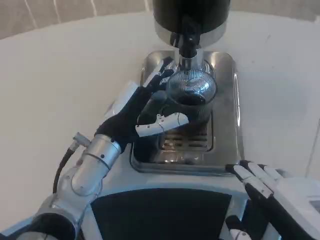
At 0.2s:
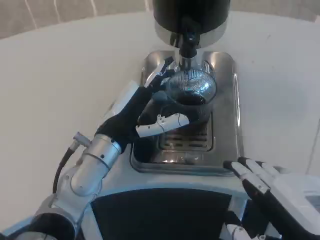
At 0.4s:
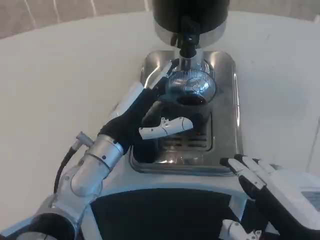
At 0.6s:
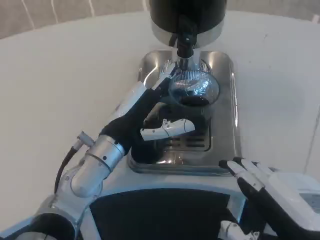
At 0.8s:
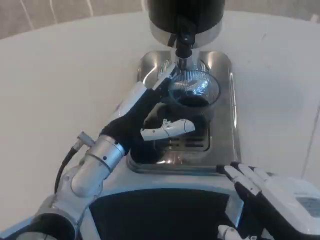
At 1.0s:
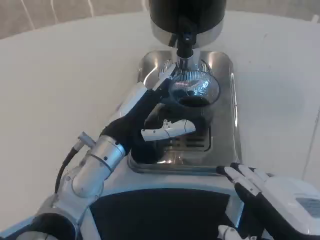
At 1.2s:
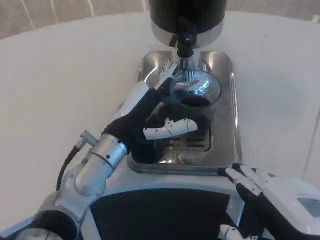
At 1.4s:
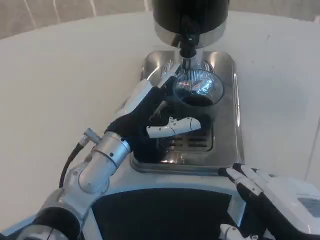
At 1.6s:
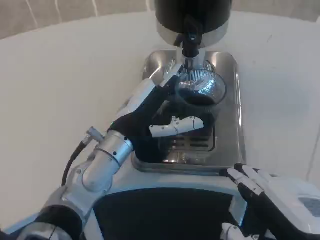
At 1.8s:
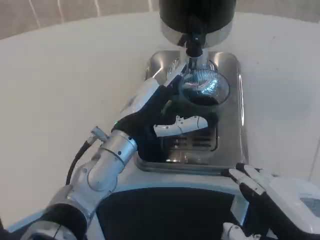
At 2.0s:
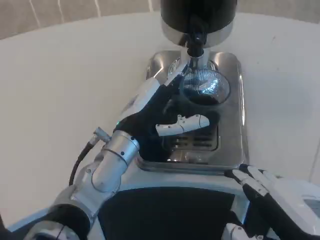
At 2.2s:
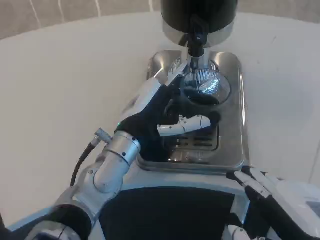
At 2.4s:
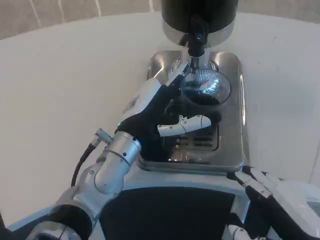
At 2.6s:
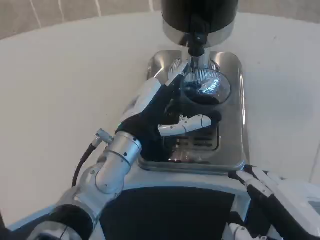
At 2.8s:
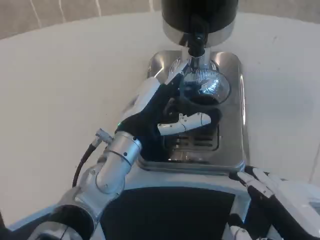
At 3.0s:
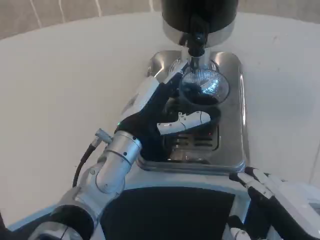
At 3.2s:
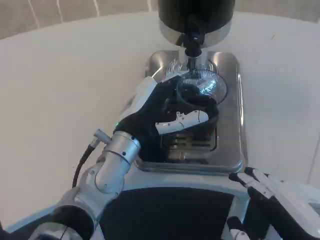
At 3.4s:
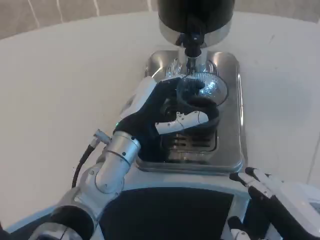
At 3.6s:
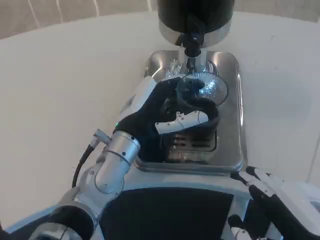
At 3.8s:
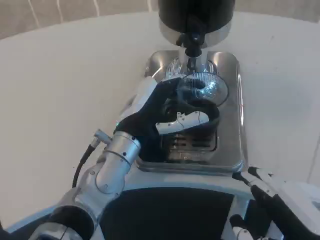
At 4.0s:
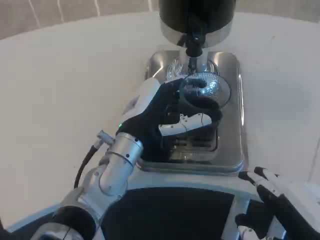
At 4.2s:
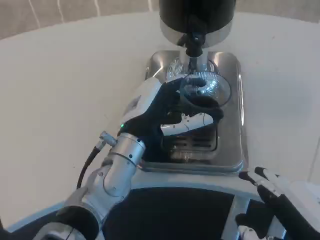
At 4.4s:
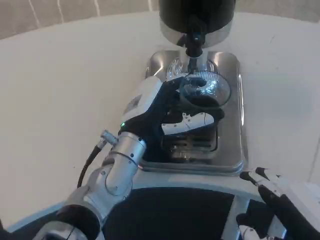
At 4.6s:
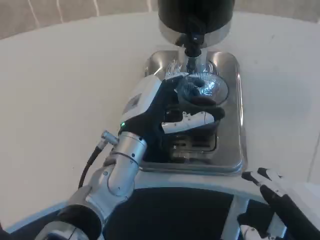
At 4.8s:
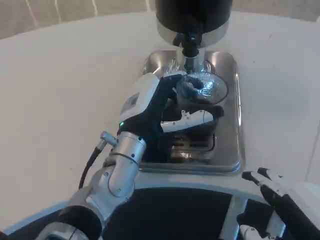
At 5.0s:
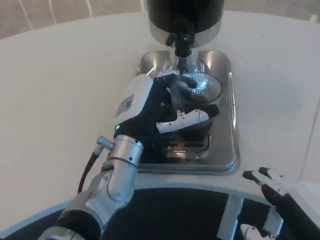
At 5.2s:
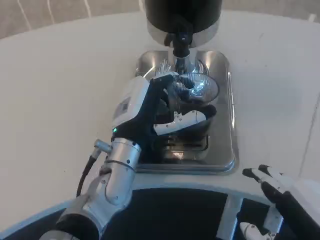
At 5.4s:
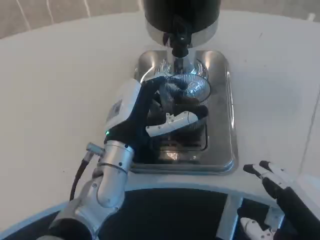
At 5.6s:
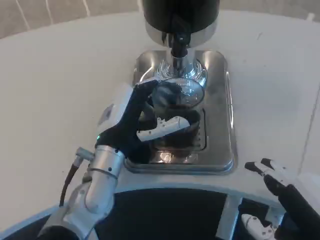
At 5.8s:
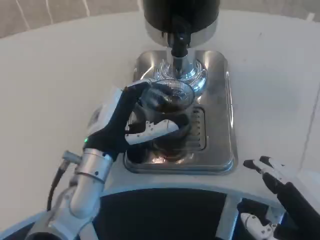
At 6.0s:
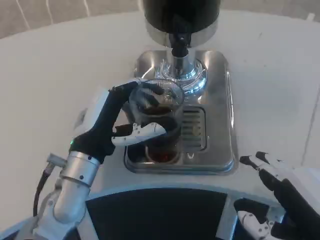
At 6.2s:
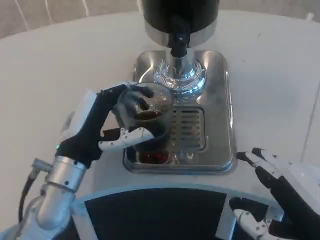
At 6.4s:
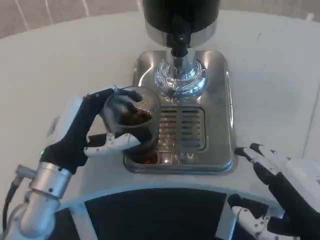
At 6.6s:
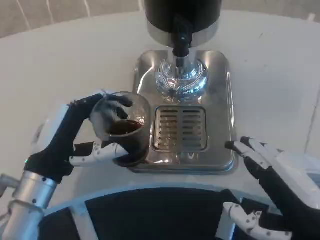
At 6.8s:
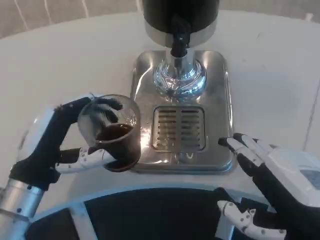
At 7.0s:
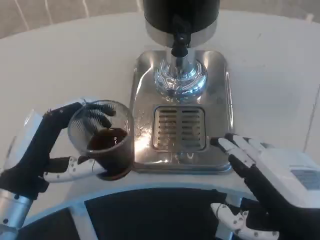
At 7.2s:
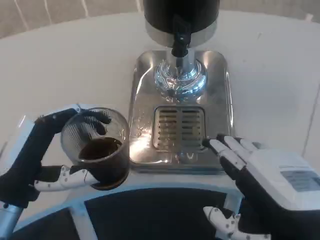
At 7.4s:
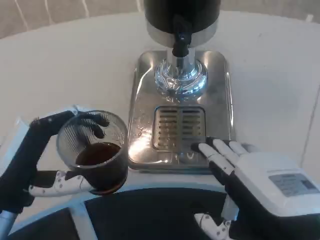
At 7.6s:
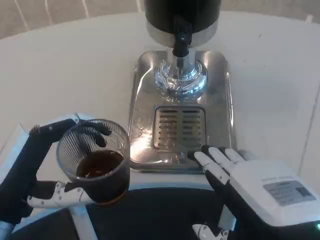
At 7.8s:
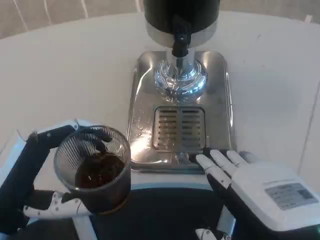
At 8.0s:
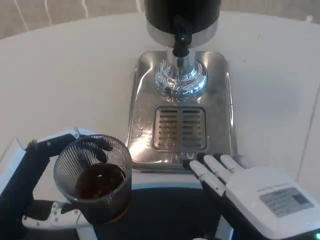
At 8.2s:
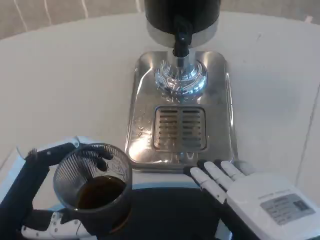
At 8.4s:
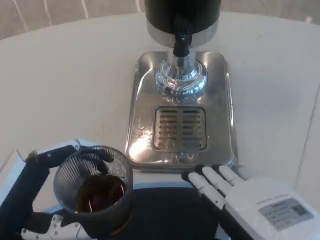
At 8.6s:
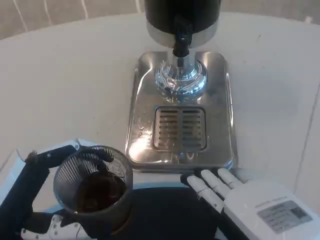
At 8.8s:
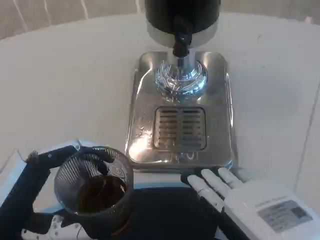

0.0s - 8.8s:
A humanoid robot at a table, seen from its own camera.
Task of the whole recording: Grasp the cup under the faucet to collect the drink, then remove the cup.
0.0s - 4.4s: There are only small adjustments of the hands.
4.4s - 5.8s: The left hand goes roughly 5 cm to the left.
5.8s - 7.4s: The left hand travels to the left and backward by approximately 15 cm.

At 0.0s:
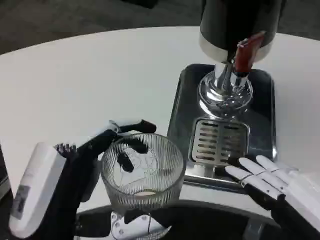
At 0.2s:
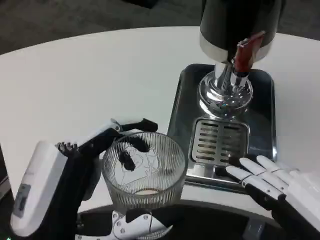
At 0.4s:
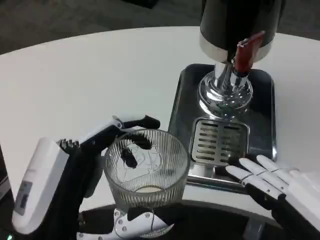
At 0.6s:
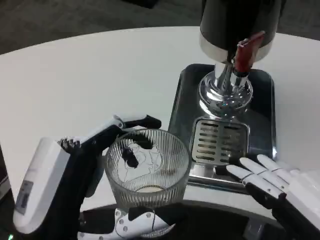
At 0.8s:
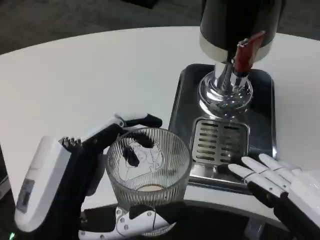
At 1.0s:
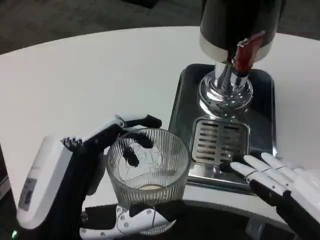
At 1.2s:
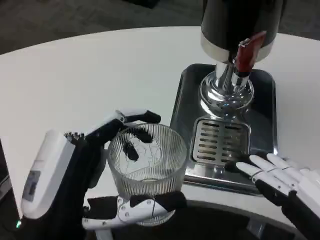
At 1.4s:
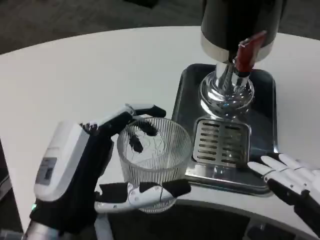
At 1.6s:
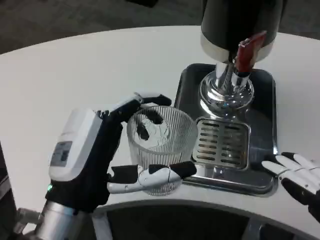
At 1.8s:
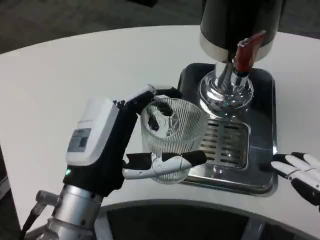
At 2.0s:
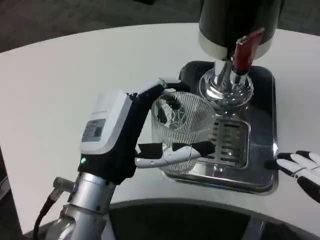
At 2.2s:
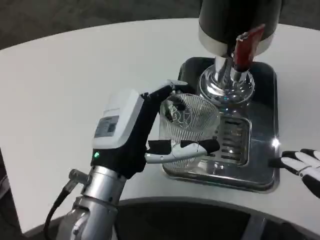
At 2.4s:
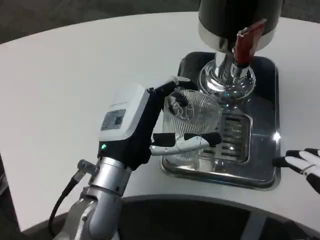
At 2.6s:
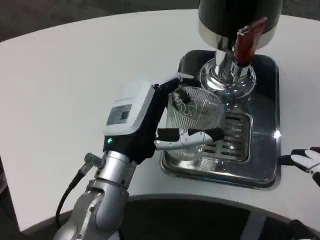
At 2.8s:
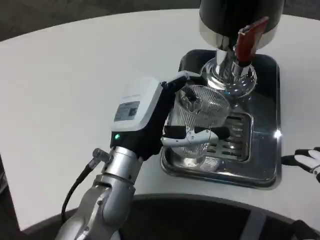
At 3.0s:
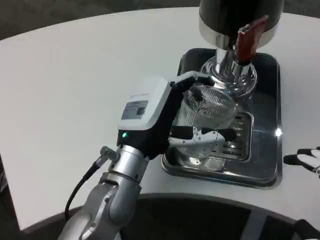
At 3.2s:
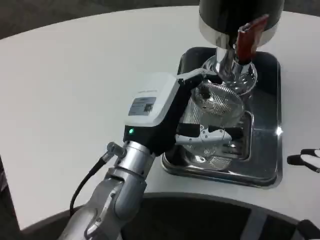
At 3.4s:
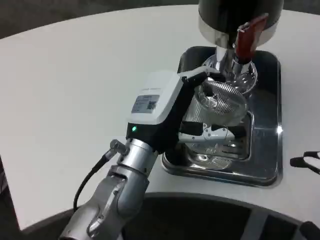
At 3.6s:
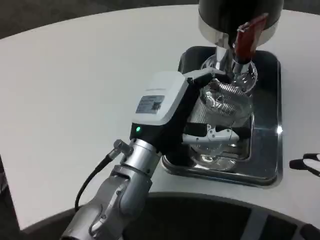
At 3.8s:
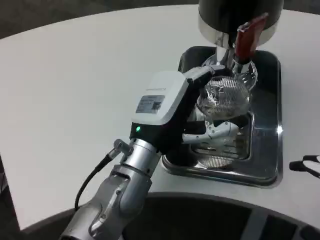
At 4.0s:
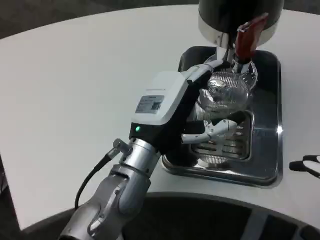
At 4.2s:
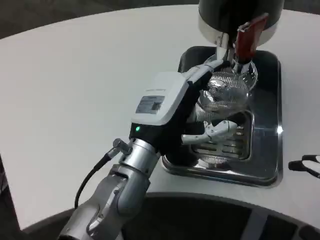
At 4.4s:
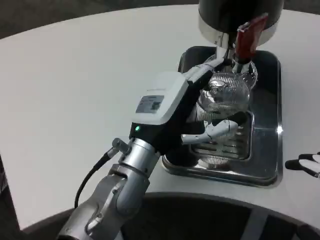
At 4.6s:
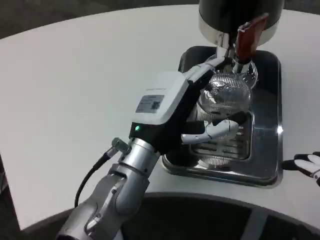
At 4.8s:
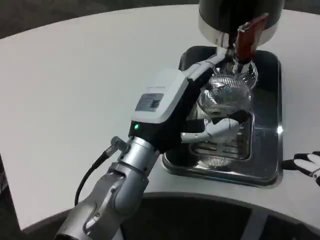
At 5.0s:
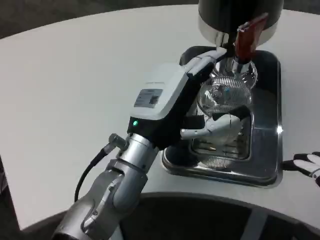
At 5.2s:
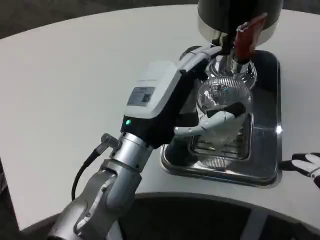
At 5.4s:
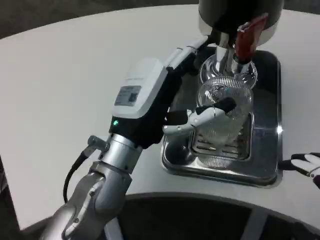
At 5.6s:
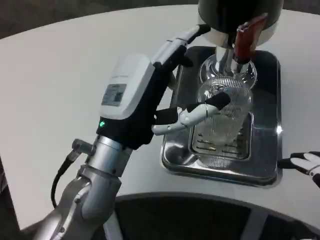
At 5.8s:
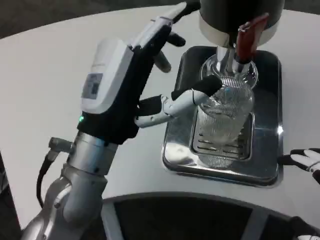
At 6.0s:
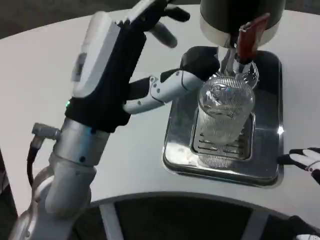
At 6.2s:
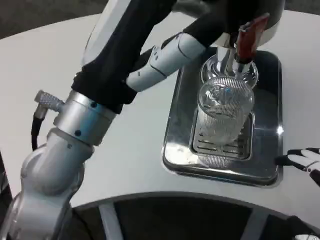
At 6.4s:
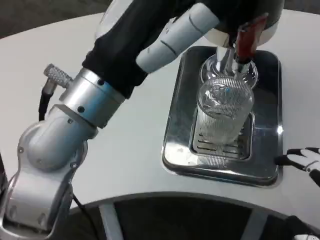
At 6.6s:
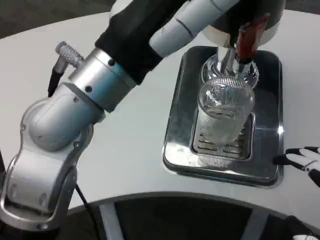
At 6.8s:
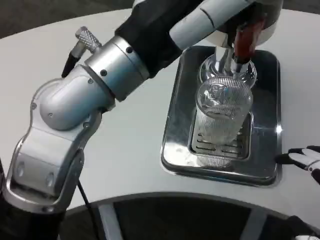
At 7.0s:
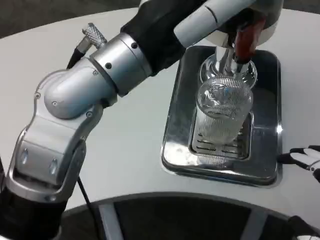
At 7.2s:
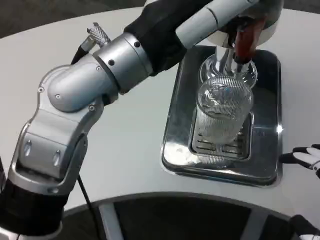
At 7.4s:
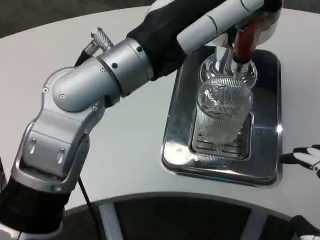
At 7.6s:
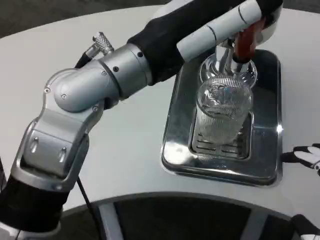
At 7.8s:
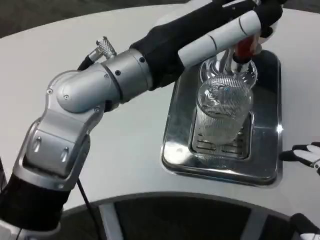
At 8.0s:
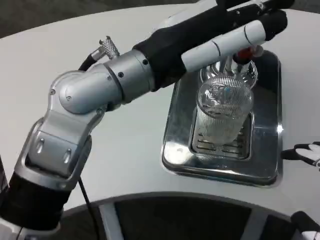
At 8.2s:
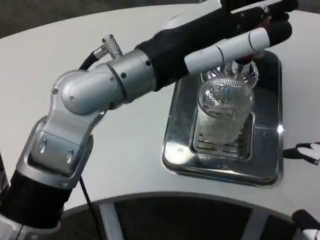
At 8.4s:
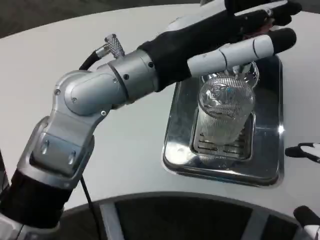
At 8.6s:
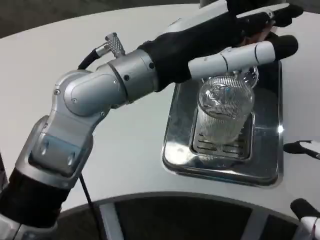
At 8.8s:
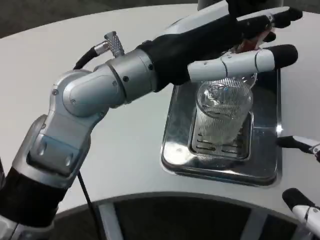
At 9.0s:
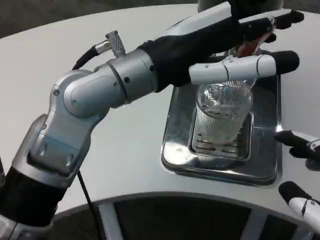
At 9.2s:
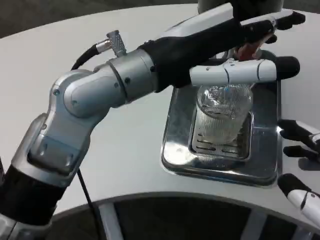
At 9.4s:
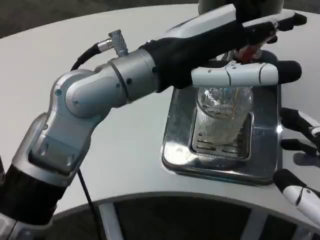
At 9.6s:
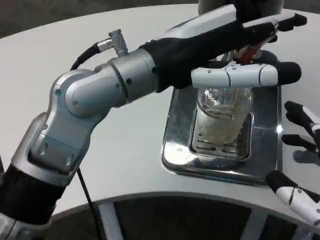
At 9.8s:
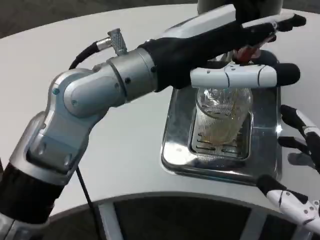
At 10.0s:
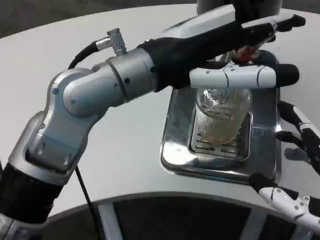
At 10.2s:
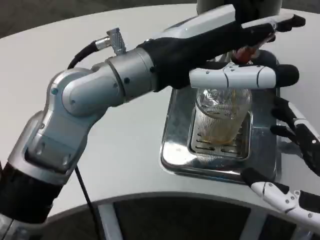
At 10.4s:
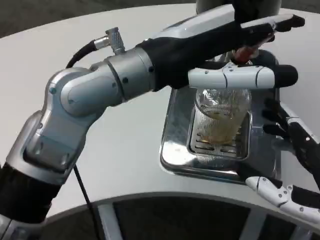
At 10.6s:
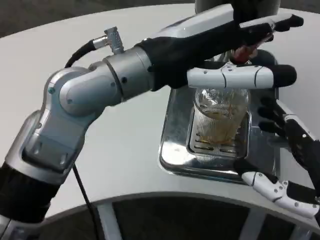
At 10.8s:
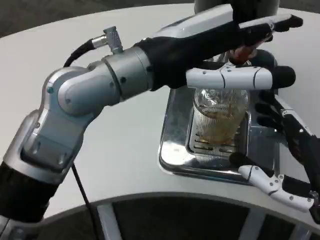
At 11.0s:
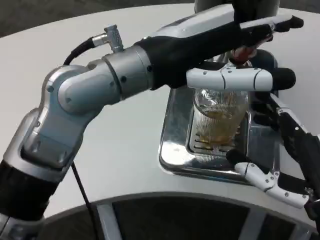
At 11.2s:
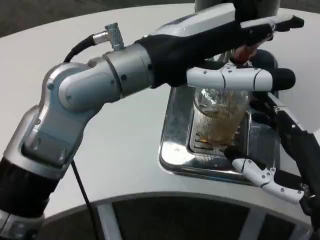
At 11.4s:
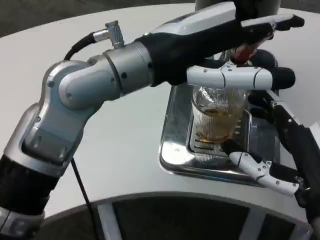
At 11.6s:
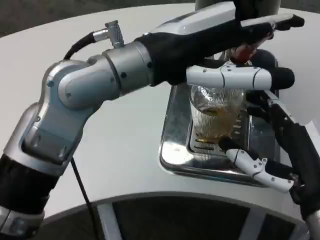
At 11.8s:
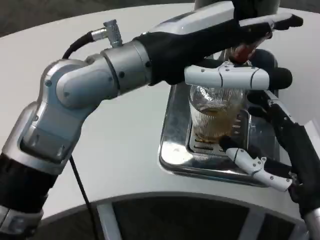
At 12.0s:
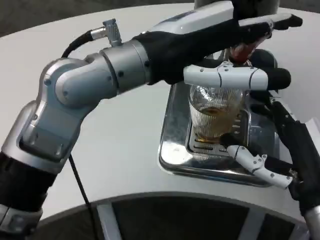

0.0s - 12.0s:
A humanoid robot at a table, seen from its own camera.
Task of the whole recording: Grasp the cup under the faucet to collect the drink, then remove the cup.
0.0s - 1.6s: The left hand goes roughly 5 cm forward.
1.6s - 3.0s: The left hand travels forward and to the right by roughly 10 cm.
3.0s - 4.4s: Both hands stay put.
4.4s - 6.0s: The left hand is displaced upward and backward by some 10 cm.
6.0s - 7.6s: The left hand travels upward by about 10 cm.
9.0s - 10.4s: The right hand heads forward, covering some 5 cm.
10.4s - 12.0s: The right hand goes roughly 5 cm forward.

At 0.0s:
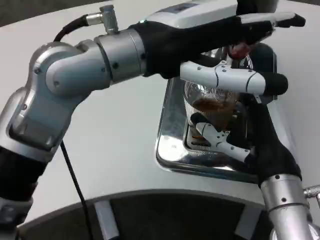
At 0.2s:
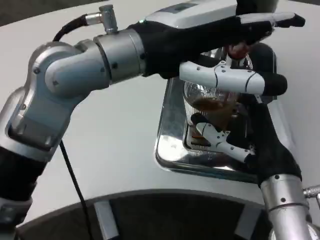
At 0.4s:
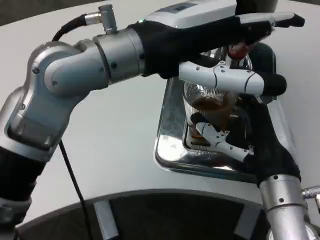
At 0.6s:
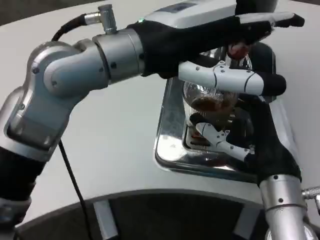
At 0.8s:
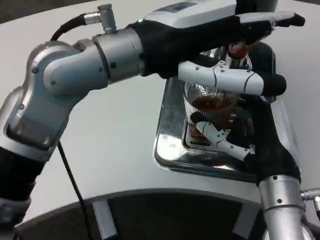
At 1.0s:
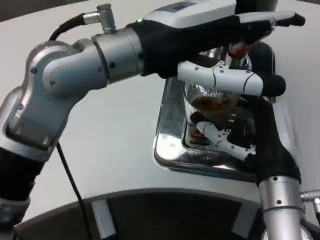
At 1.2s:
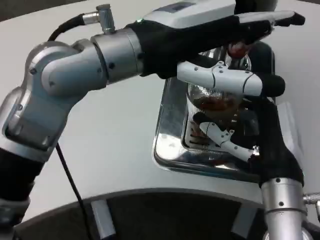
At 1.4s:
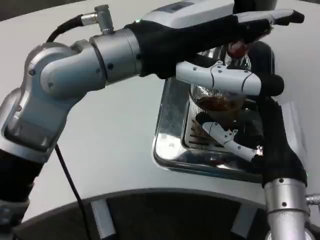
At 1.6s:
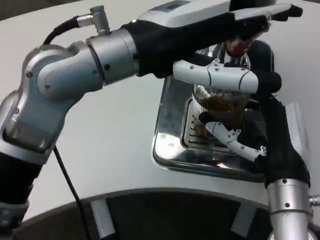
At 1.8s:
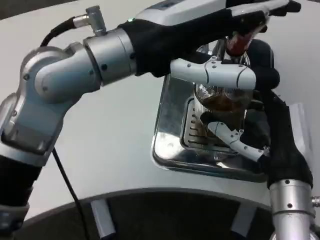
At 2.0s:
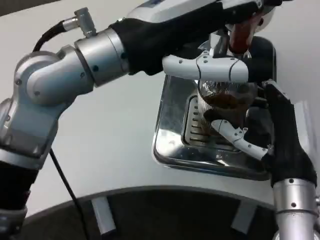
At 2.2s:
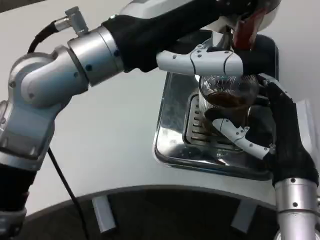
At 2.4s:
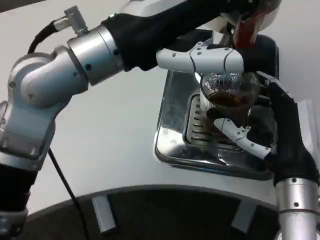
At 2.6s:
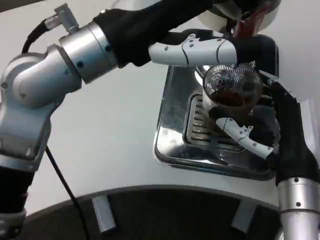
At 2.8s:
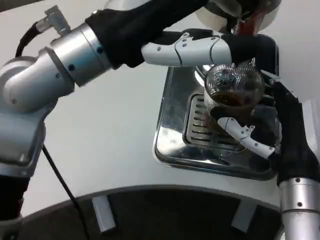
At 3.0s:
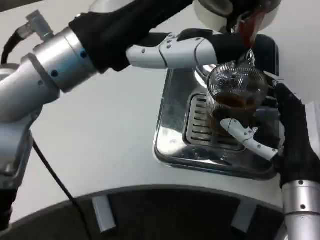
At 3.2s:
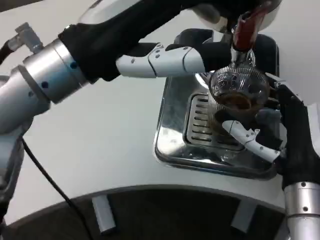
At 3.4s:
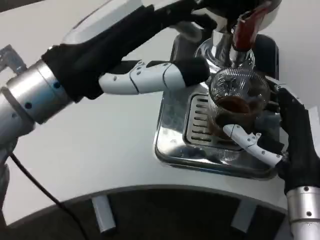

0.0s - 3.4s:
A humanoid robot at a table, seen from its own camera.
Task of the whole recording: Grasp the cup under the faucet to collect the drink, then remove the cup.
1.6s - 3.4s: The left hand goes approximately 5 cm to the left.
